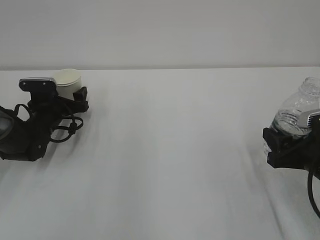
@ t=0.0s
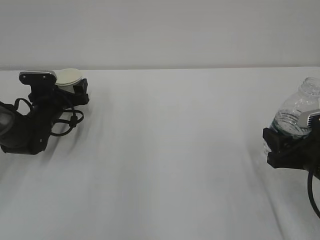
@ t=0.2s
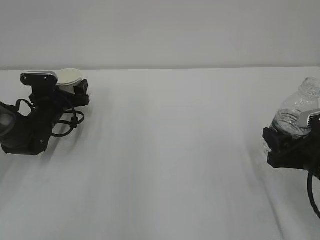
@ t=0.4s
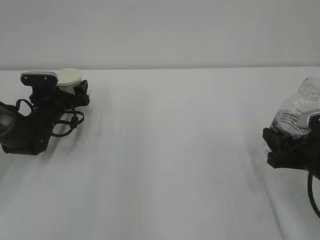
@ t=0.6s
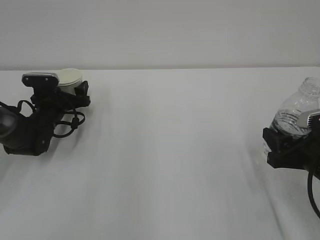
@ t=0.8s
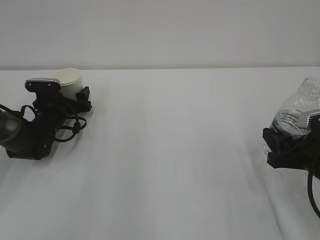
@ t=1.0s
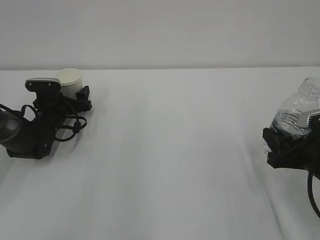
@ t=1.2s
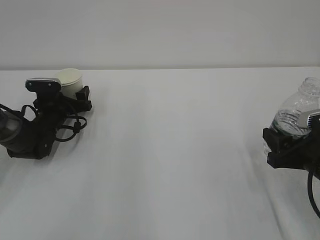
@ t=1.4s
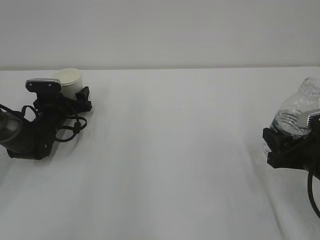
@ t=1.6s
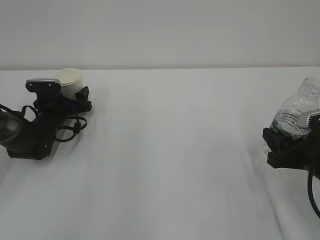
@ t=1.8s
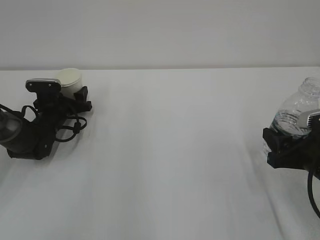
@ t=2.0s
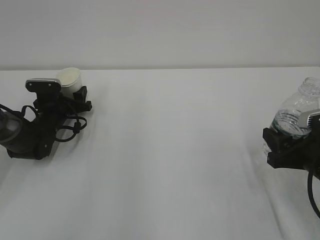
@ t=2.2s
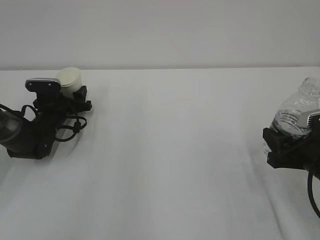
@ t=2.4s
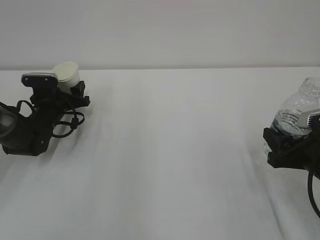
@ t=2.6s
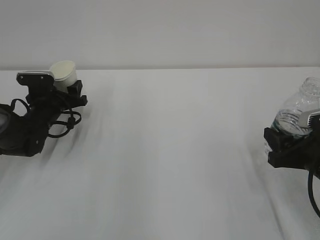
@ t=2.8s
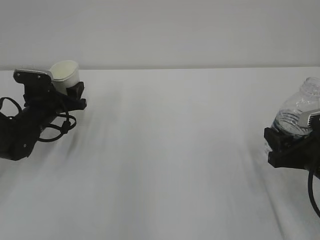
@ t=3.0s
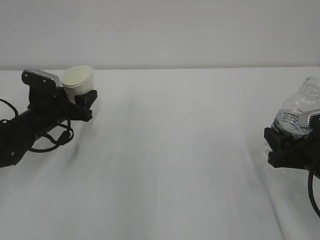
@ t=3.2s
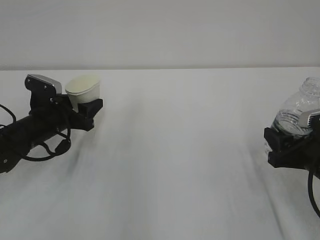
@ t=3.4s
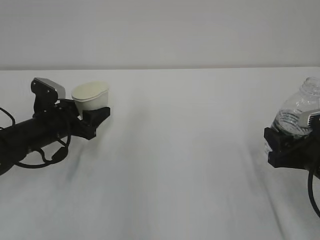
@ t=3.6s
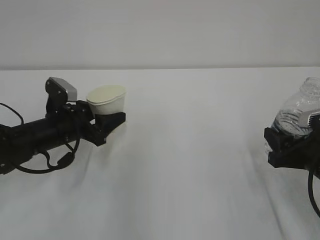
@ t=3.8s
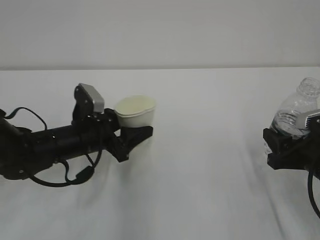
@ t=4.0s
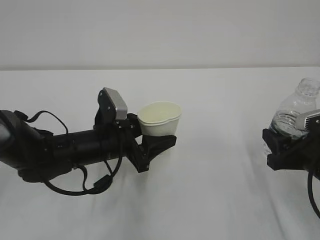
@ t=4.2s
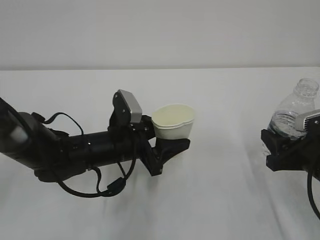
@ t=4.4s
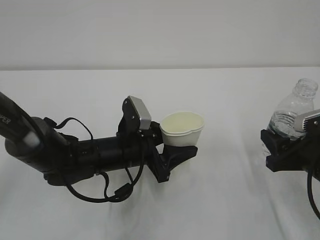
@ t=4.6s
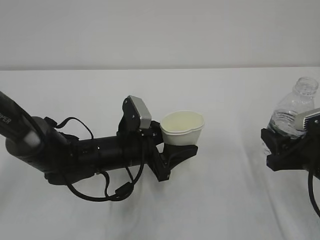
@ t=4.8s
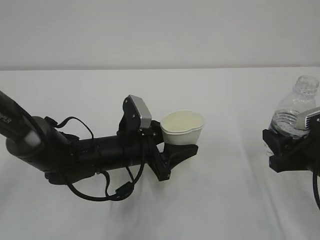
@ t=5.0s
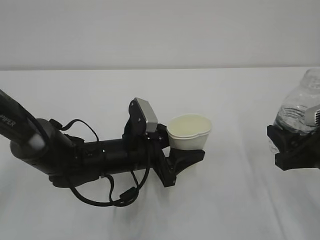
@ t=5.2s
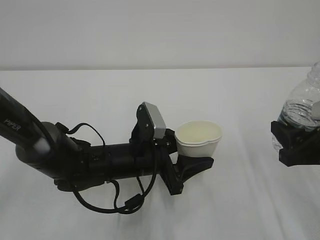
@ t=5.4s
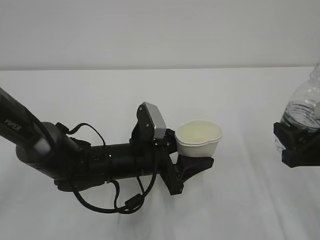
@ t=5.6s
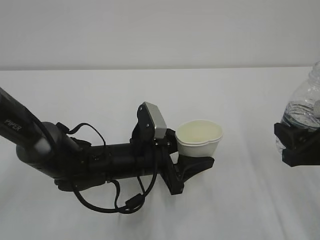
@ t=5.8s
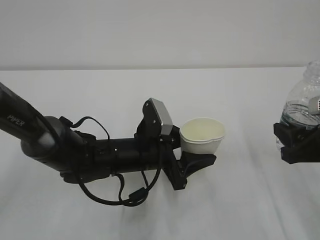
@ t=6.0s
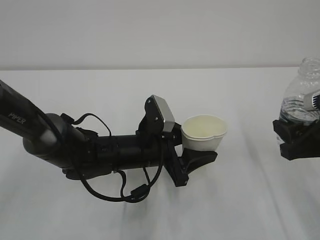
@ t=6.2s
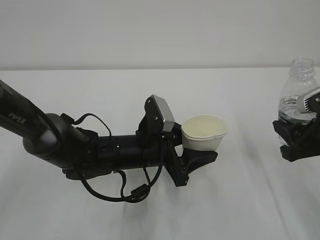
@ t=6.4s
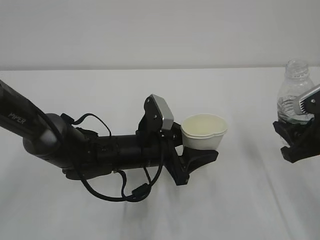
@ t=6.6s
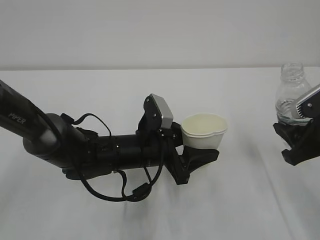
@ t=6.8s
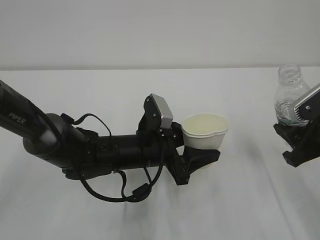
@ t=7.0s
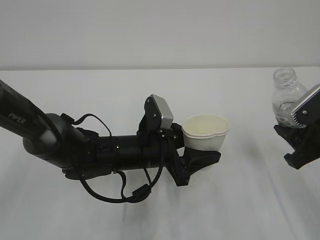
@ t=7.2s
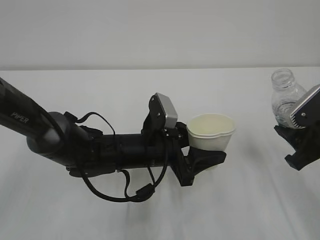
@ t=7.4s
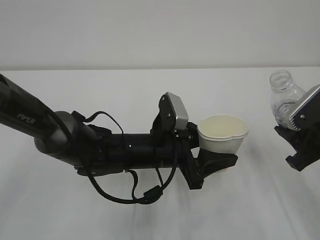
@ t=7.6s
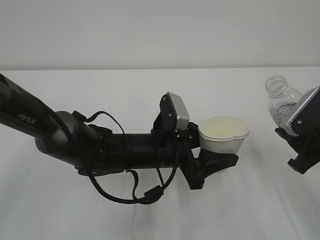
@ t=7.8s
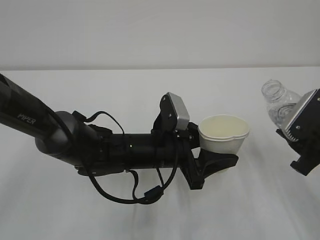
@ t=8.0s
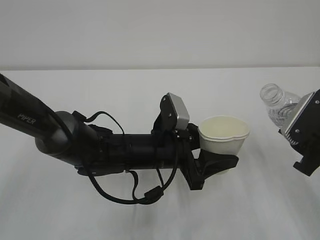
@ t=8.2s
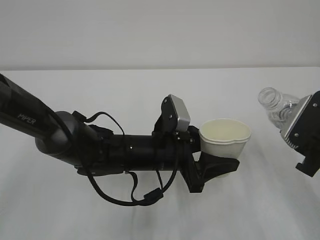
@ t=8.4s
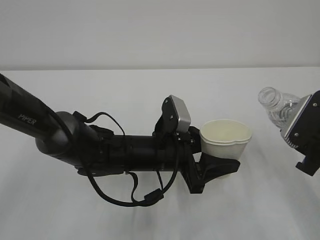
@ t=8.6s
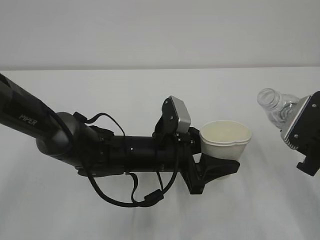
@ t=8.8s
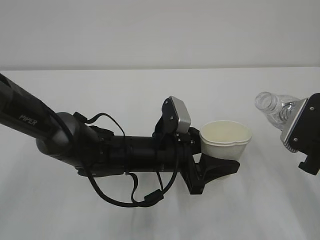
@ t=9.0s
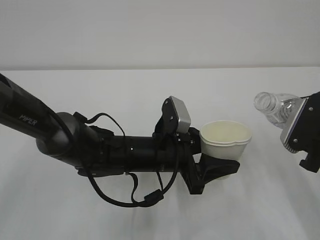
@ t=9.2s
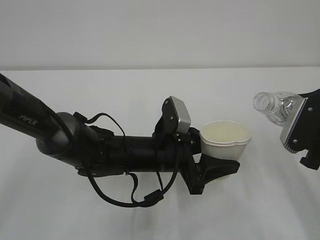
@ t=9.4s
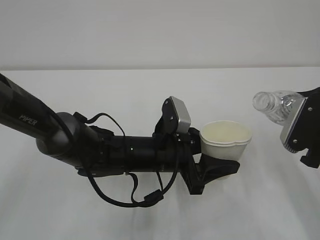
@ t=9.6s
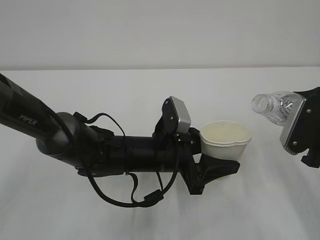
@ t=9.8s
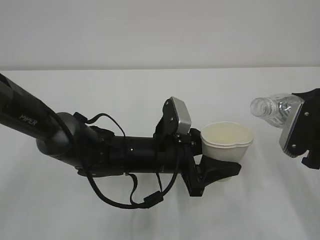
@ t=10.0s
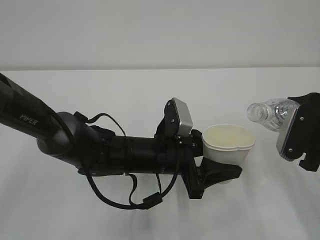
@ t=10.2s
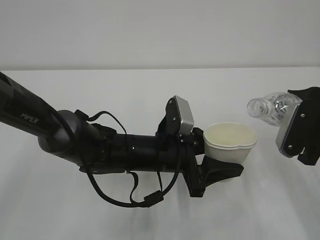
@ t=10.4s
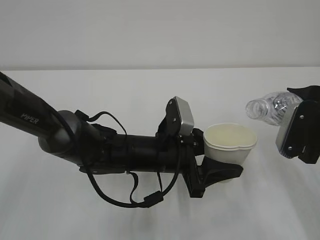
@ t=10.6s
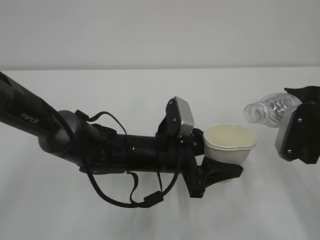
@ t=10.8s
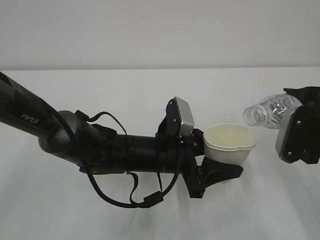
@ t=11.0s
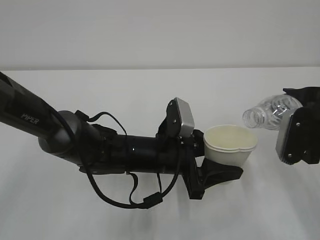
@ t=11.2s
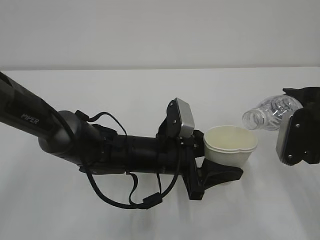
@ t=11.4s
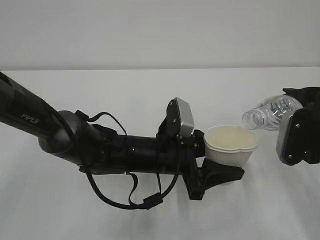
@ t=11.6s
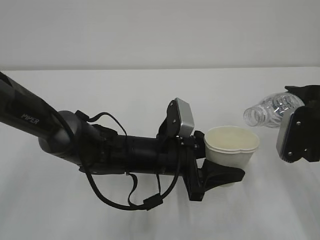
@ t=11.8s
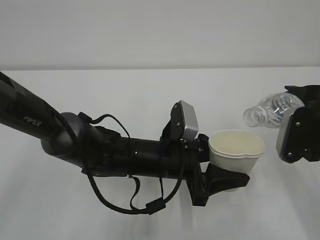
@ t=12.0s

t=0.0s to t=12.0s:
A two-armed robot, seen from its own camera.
t=0.0s to t=1.6s: The grippers stay close to where they were, moving slightly.
t=1.6s to t=3.0s: The left gripper changes place by about 5 cm, and closes up.
t=3.0s to t=4.4s: The left gripper moves to the right and backward, roughly 20 cm.
t=4.4s to t=6.0s: The right gripper moves some 5 cm.
t=9.0s to t=10.4s: There are only small adjustments of the grippers.
t=10.4s to t=12.0s: There are only small adjustments of the grippers.

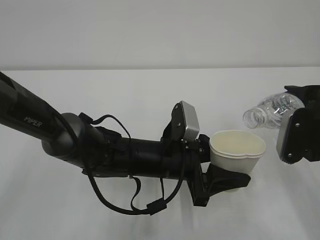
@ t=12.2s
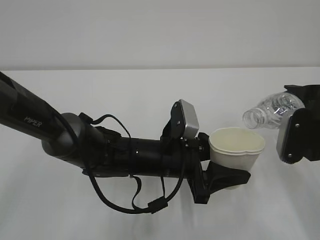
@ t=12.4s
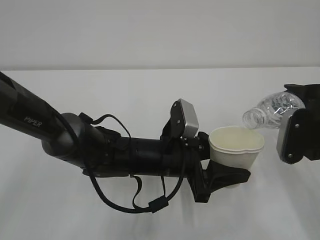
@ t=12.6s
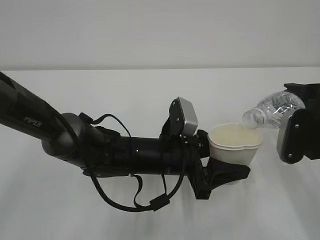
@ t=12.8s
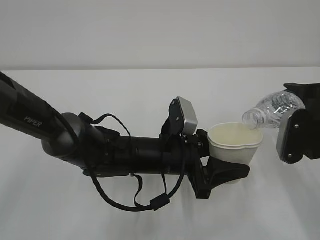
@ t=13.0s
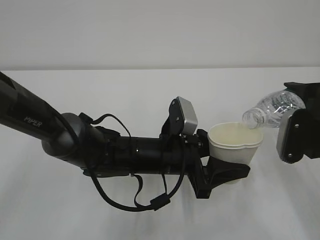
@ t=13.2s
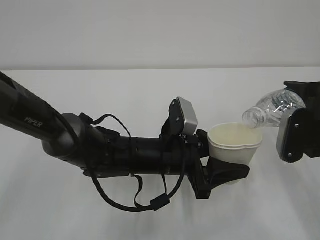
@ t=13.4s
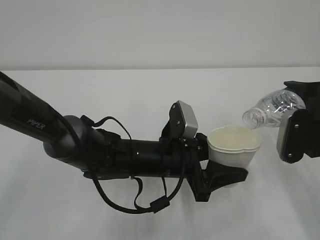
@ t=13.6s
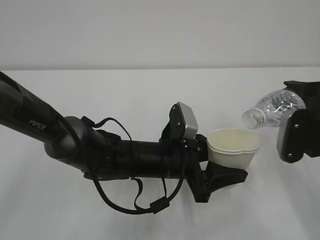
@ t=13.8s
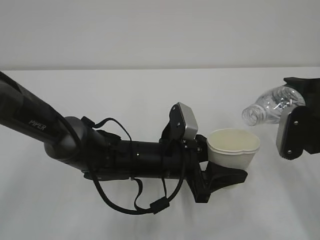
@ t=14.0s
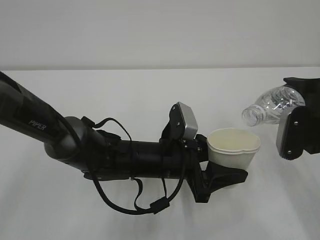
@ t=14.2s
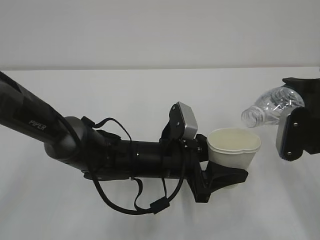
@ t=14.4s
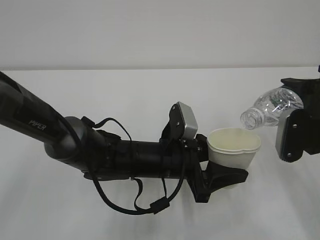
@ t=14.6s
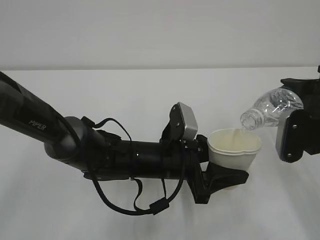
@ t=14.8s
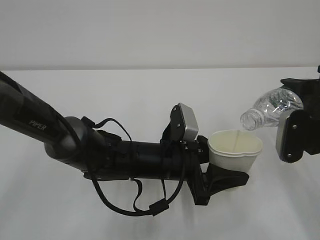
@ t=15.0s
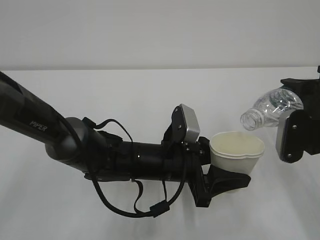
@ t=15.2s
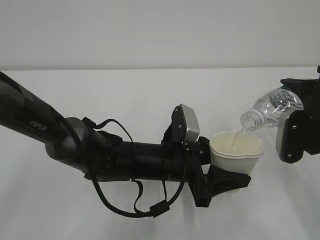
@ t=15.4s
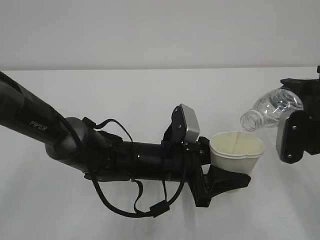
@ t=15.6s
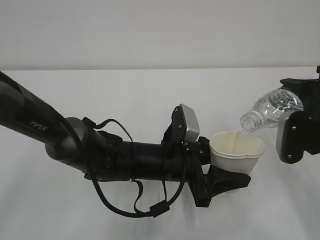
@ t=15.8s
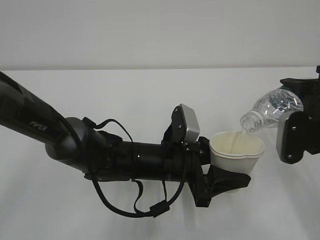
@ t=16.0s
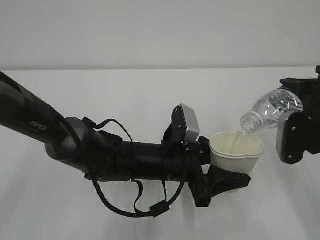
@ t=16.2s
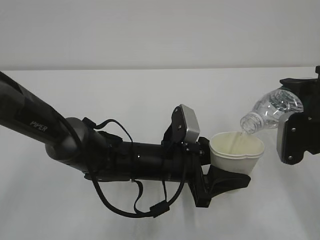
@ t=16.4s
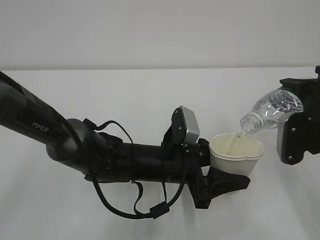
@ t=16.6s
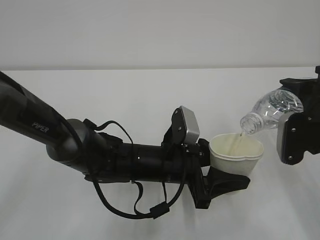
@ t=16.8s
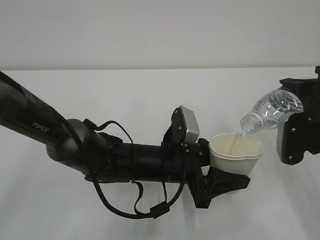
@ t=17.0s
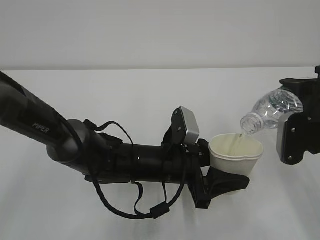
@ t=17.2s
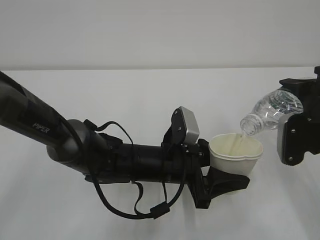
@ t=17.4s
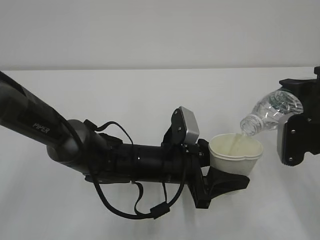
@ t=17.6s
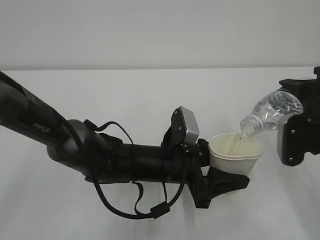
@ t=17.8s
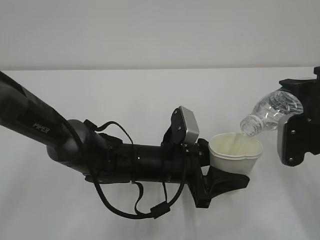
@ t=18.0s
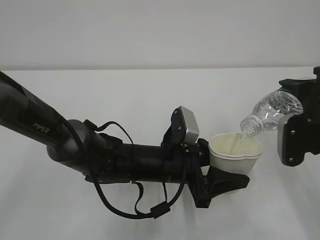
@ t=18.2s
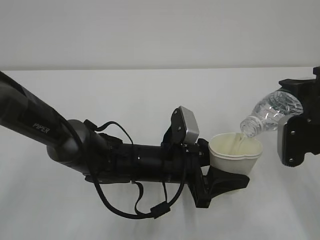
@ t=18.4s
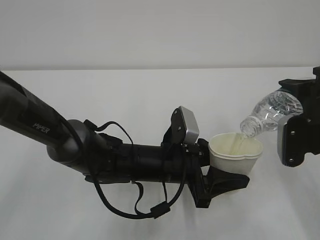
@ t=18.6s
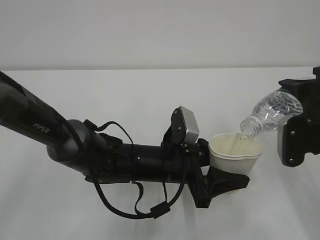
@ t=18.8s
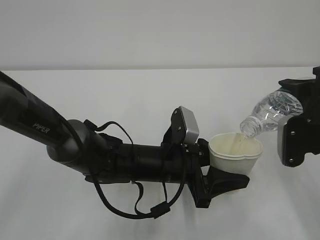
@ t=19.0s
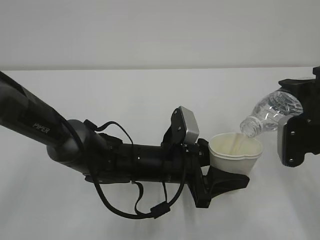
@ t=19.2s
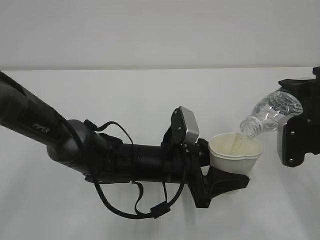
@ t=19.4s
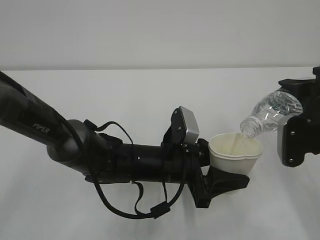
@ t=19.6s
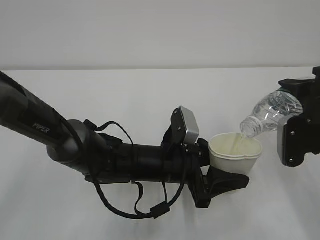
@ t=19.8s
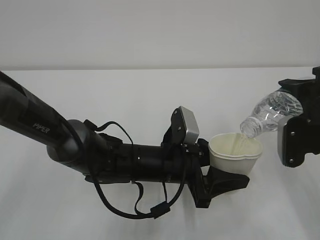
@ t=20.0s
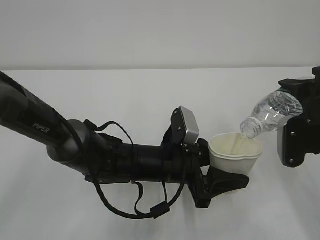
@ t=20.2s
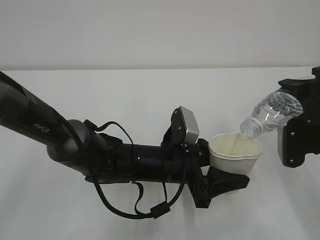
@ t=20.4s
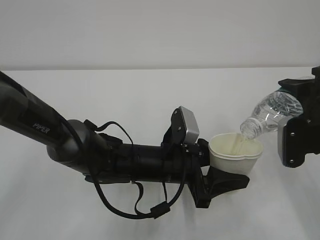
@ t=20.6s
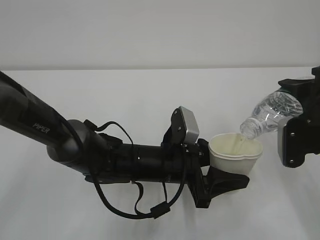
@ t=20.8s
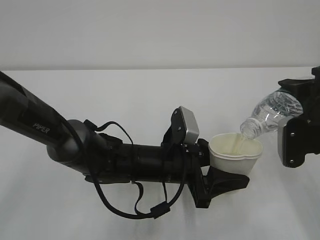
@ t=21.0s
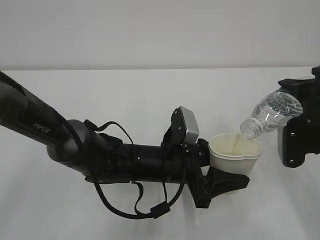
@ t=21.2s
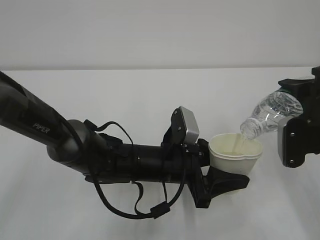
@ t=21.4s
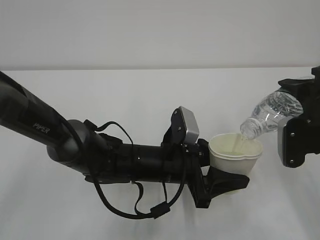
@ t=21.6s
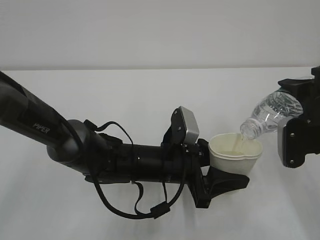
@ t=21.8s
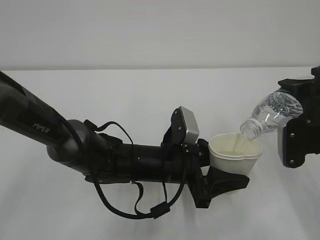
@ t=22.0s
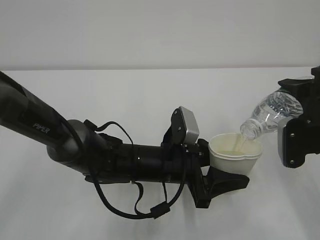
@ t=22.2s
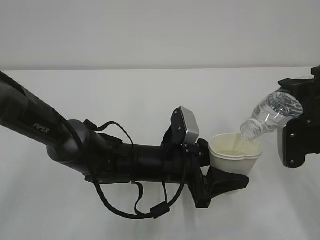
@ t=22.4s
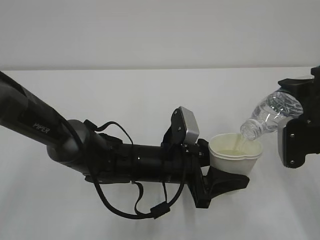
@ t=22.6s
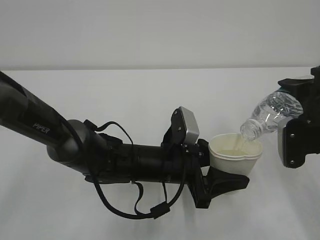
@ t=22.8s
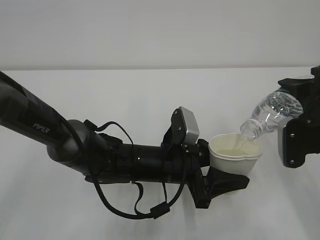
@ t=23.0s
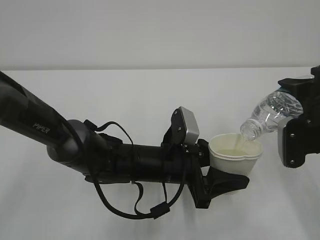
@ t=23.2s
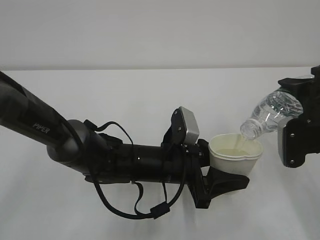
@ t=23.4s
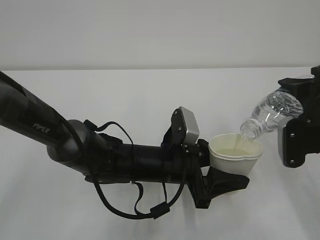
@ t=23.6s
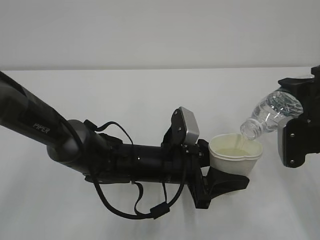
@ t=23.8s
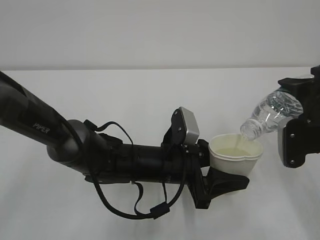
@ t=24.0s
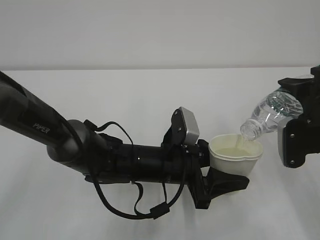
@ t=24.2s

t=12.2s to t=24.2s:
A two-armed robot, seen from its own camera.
t=12.2s to t=13.8s: Both grippers stay about where they are.
t=13.8s to t=15.2s: The two grippers keep their place.
t=15.2s to t=16.6s: Both grippers stay about where they are.
t=16.6s to t=21.2s: The two grippers keep their place.
t=21.2s to t=24.2s: Neither gripper changes place.
